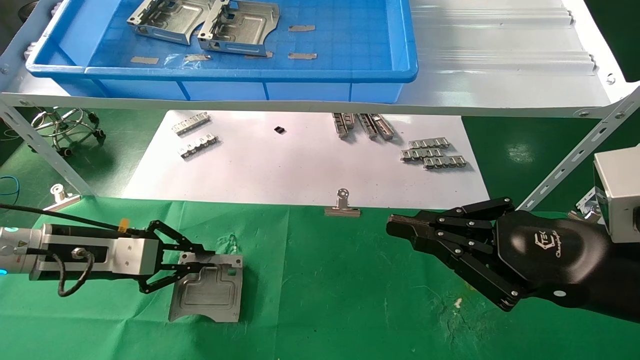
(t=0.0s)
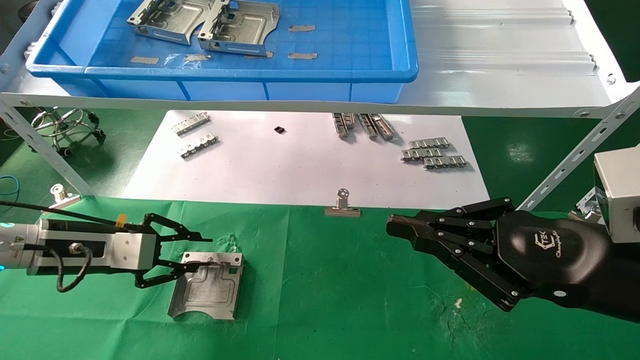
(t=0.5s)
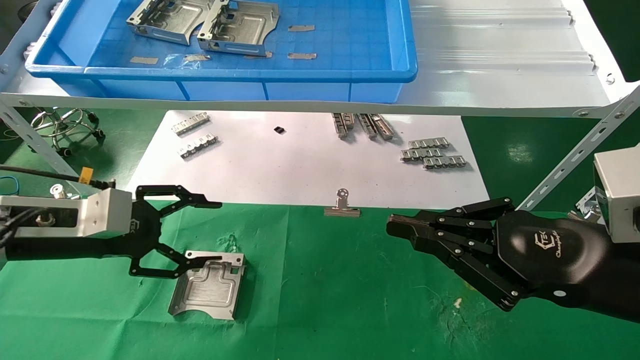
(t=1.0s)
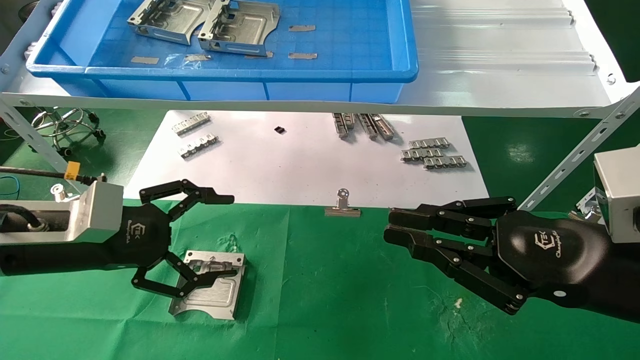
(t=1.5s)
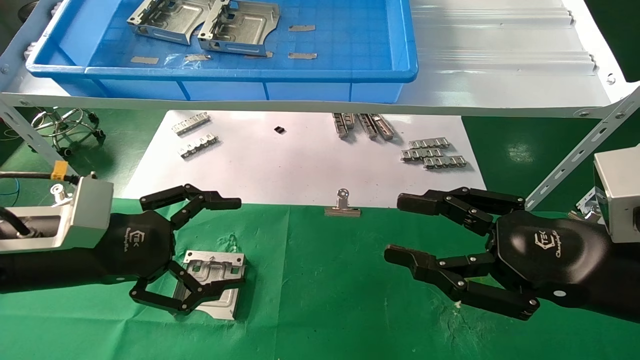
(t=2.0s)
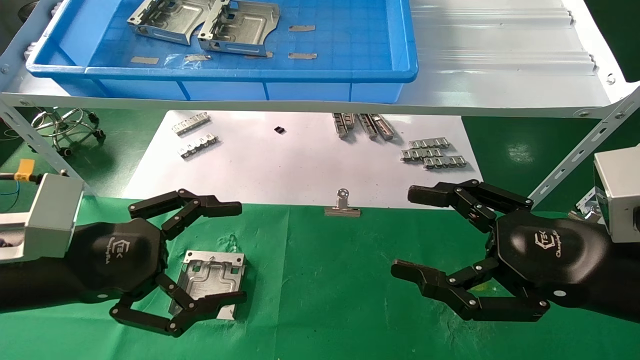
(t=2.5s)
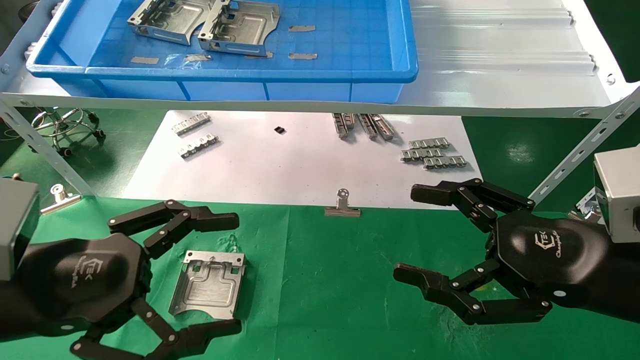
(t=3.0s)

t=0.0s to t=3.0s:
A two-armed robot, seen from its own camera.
Task of the whole recording: use the mechanical arm to pick up the parts and place them on the table.
t=0.0s to t=1.5s: The left gripper goes approximately 5 cm backward, and opens.
t=1.5s to t=3.0s: The right gripper opens its fingers. Meanwhile the left gripper moves backward, roughly 10 cm.

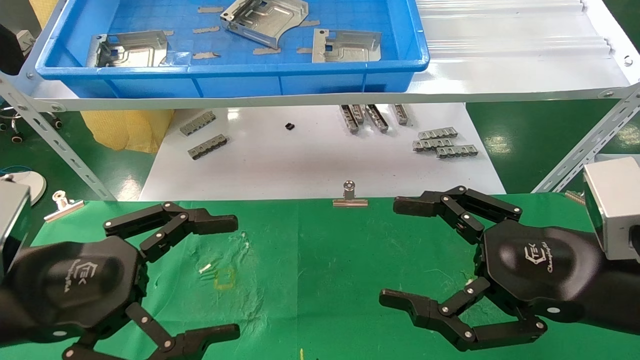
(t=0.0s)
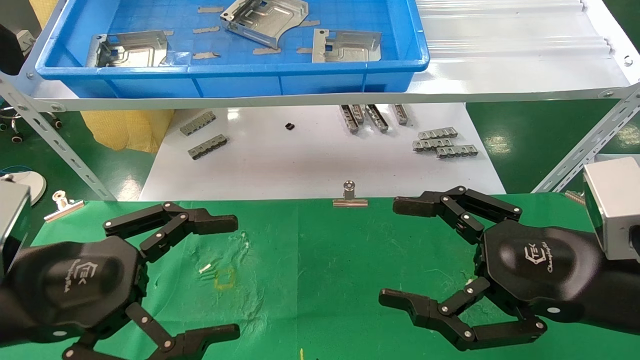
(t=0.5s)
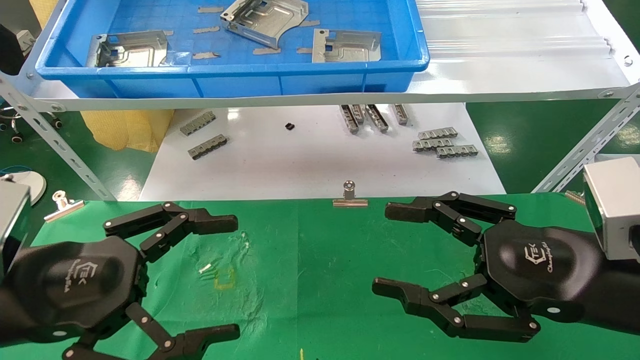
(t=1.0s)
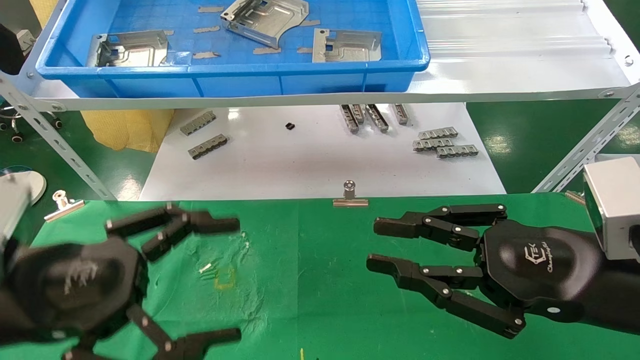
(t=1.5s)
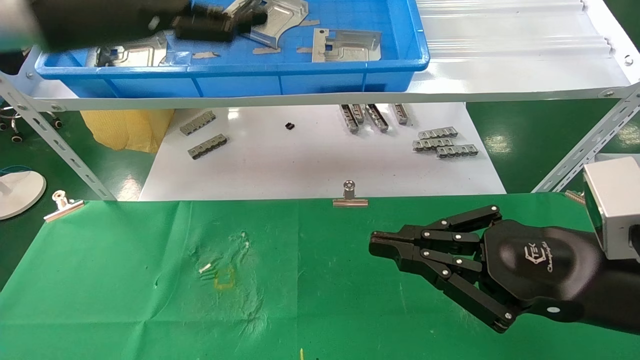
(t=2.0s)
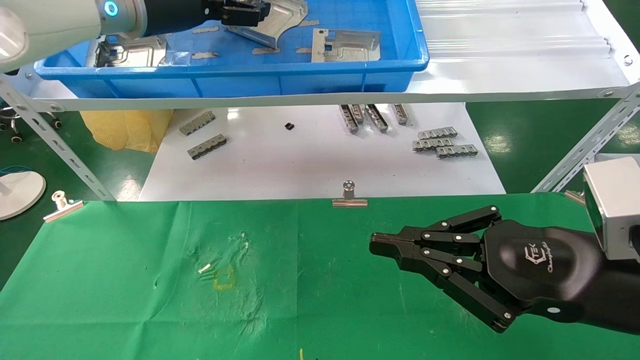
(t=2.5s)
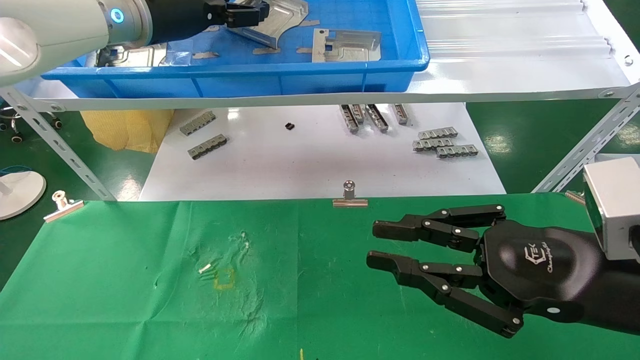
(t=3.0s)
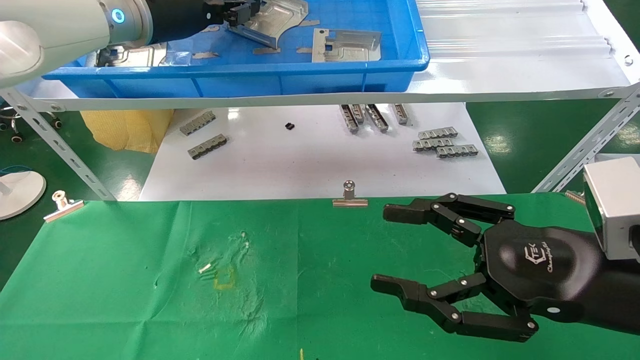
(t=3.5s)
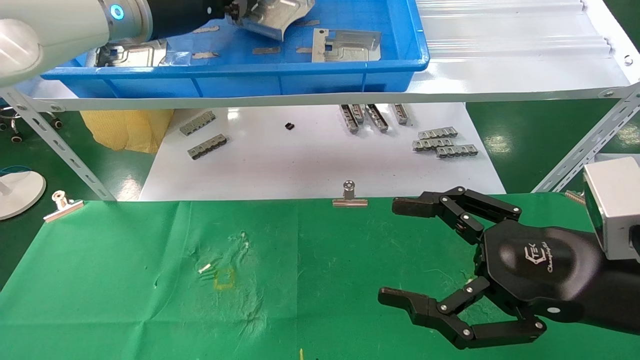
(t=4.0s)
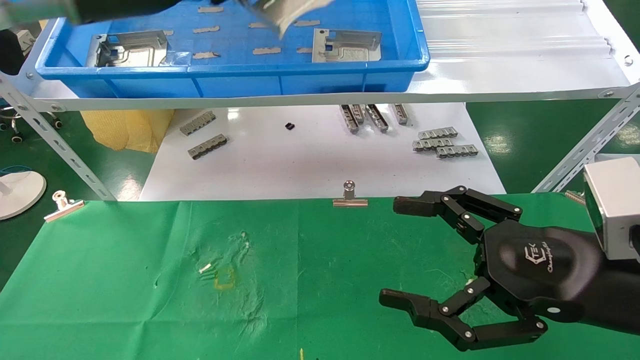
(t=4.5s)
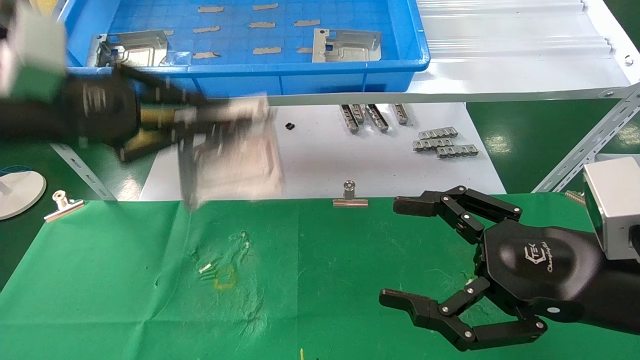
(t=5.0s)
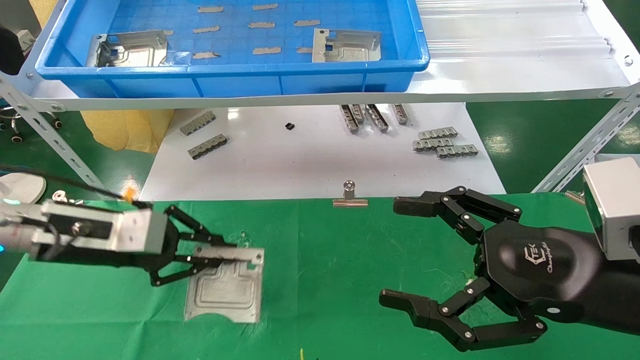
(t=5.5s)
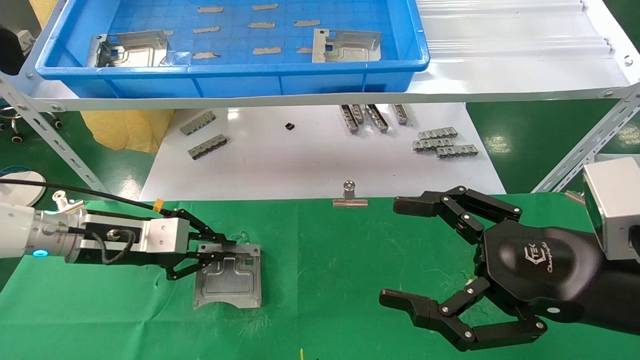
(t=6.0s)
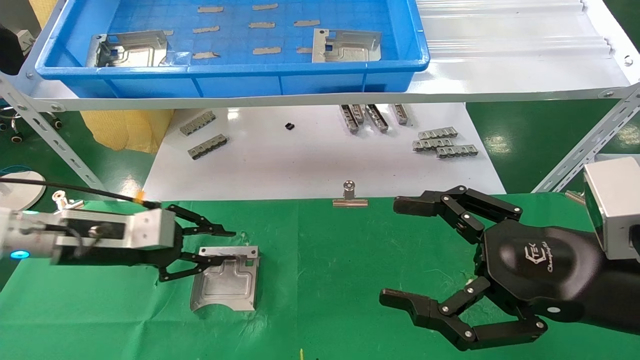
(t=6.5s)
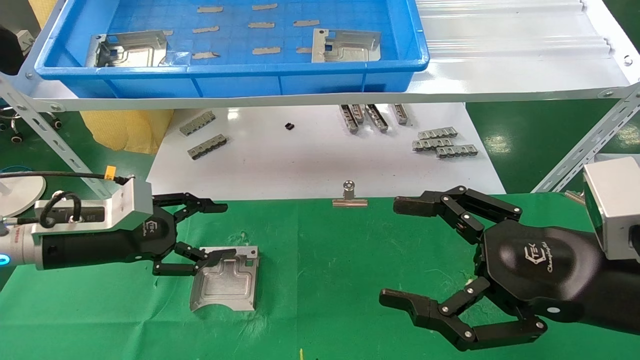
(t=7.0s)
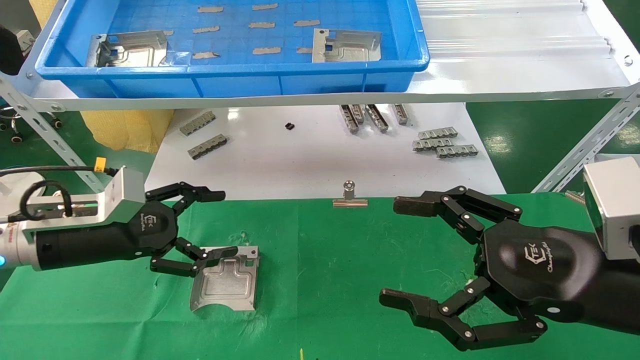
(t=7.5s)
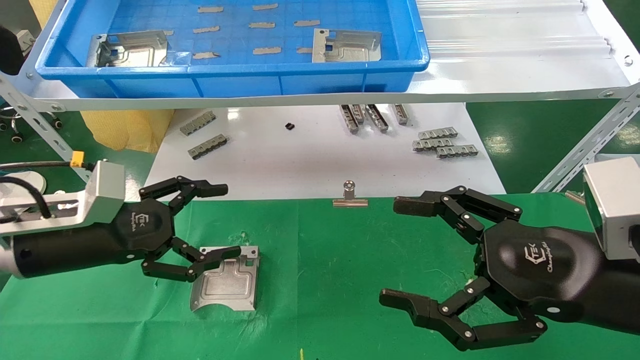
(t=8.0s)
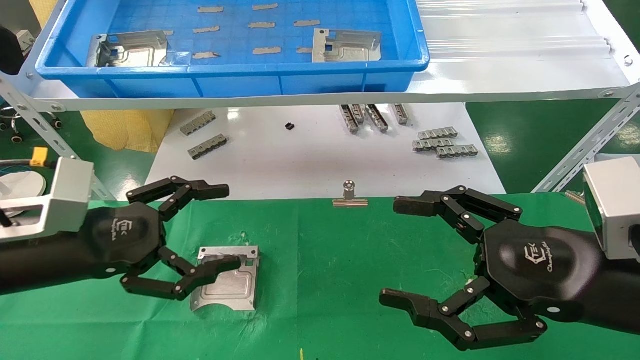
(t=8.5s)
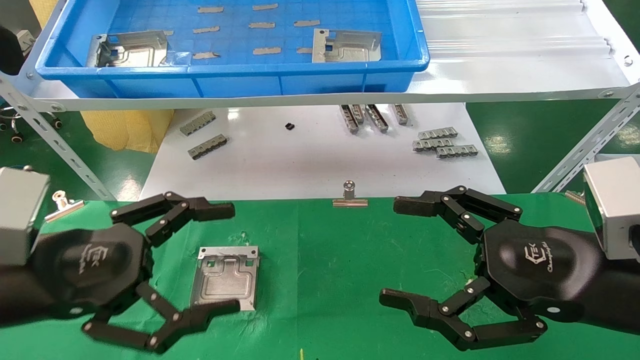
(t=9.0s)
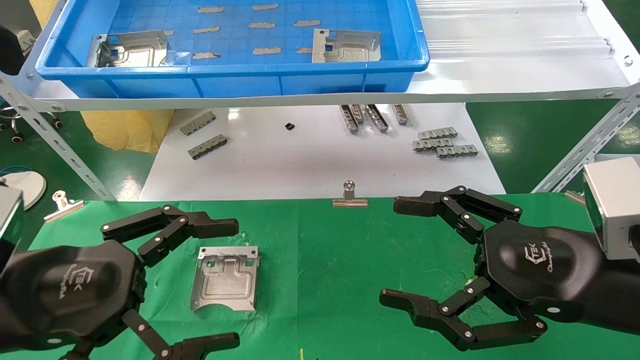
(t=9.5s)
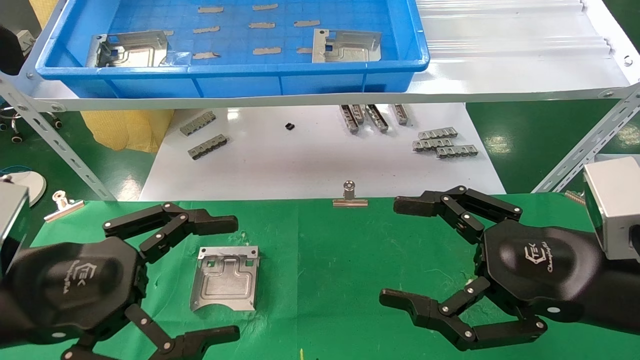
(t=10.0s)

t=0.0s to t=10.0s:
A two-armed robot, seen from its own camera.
Task of the whole recording: use the mechanical arm to pick up the parts and place them on the table.
Step, t=2.0s to t=3.5s: Pick up the hard drive bracket from the feeding area.
Step, t=4.0s to t=6.5s: Place the hard drive bracket into the box.
t=0.0s to t=2.0s: The right gripper closes up; the left gripper moves upward and forward, some 25 cm.
t=2.0s to t=4.0s: The left gripper is displaced forward by some 10 cm, and closes. The right gripper opens.
t=4.0s to t=6.0s: The left gripper is displaced downward by about 30 cm.
t=6.0s to t=8.0s: The left gripper heads backward, covering some 5 cm, and opens up.
t=8.0s to t=10.0s: The left gripper moves backward, about 10 cm.

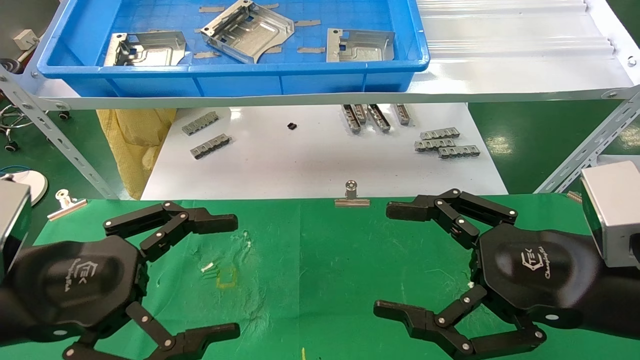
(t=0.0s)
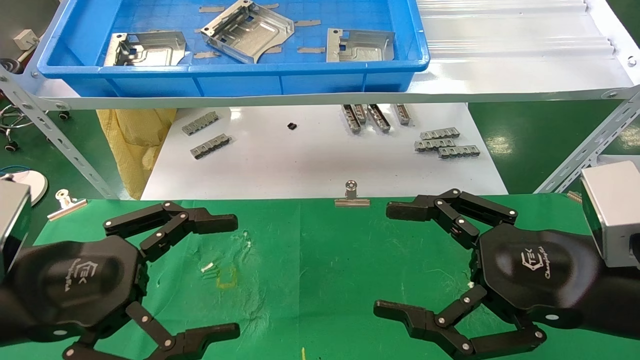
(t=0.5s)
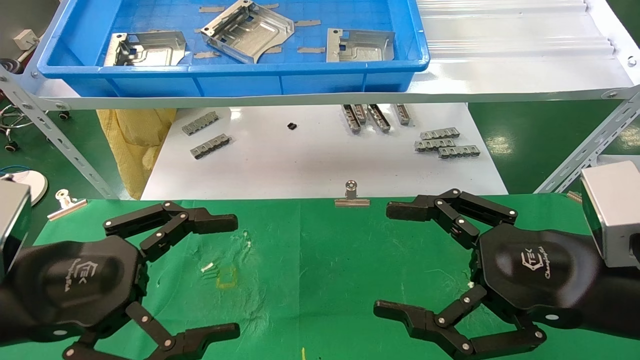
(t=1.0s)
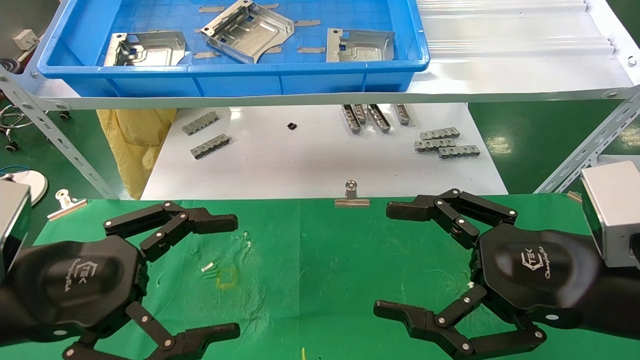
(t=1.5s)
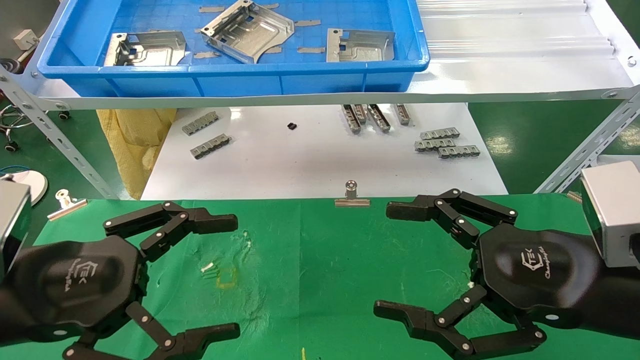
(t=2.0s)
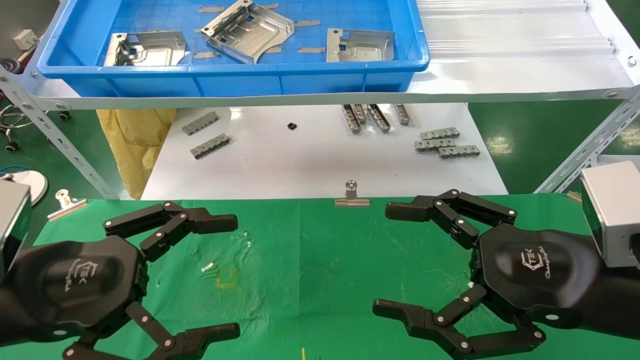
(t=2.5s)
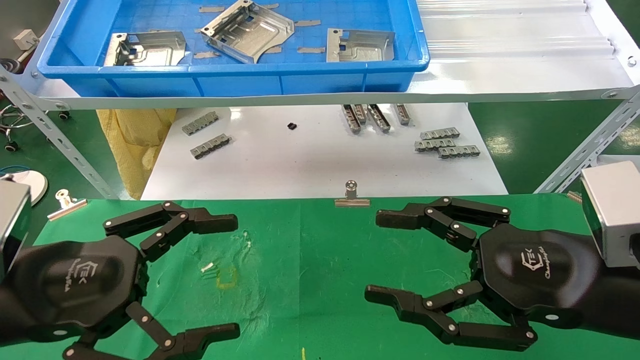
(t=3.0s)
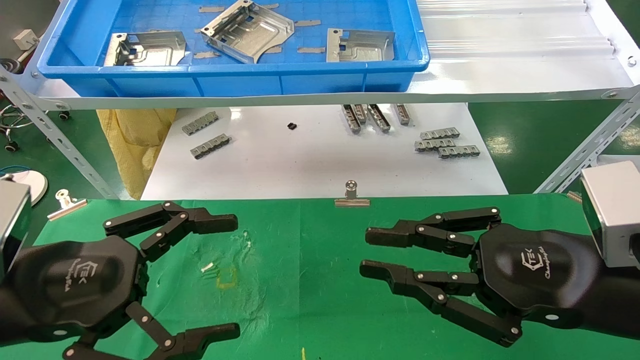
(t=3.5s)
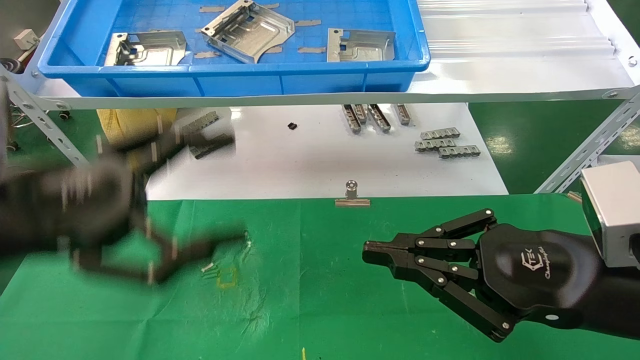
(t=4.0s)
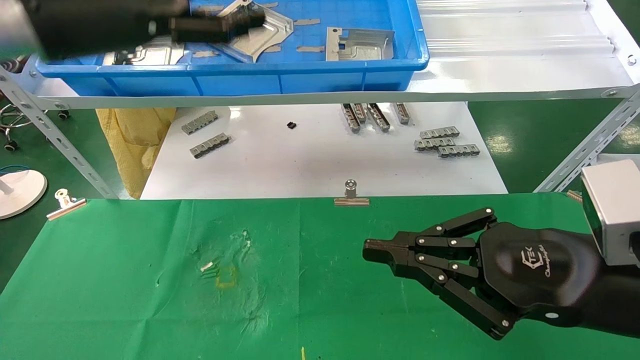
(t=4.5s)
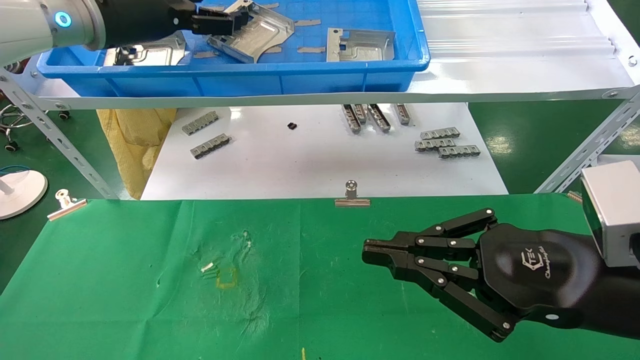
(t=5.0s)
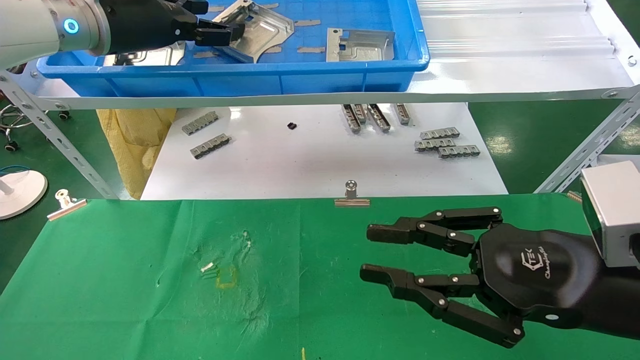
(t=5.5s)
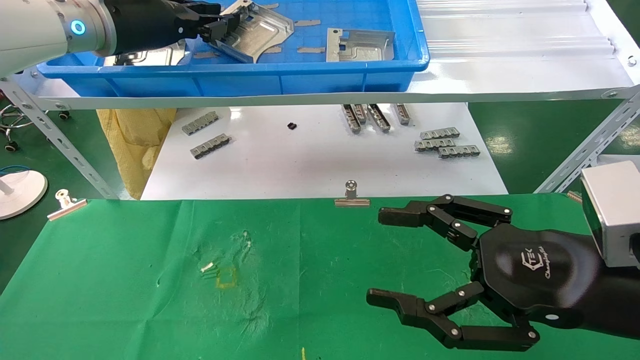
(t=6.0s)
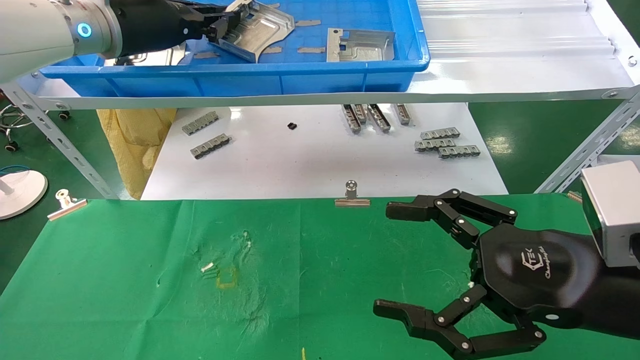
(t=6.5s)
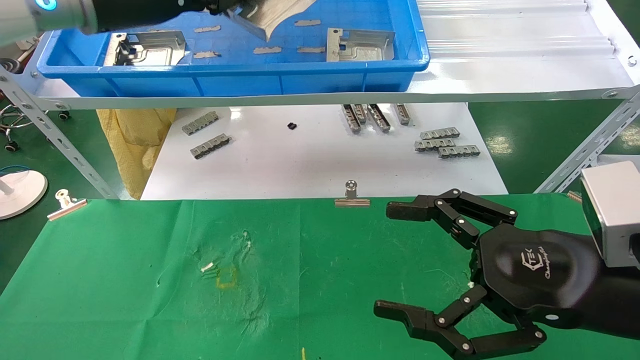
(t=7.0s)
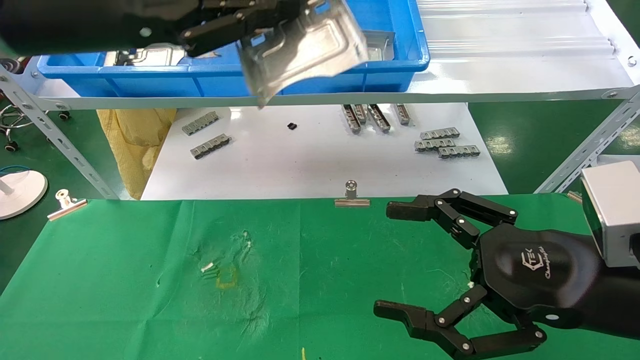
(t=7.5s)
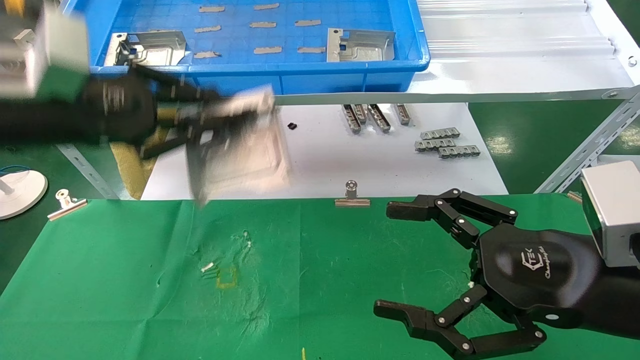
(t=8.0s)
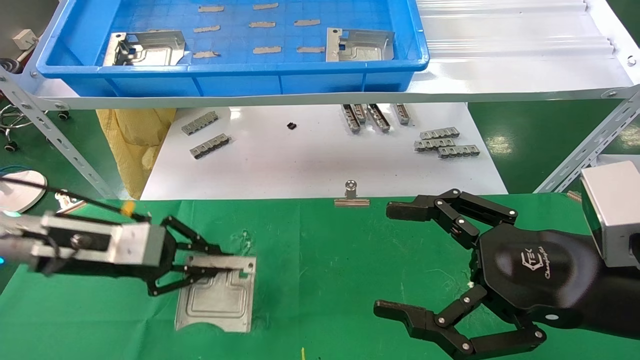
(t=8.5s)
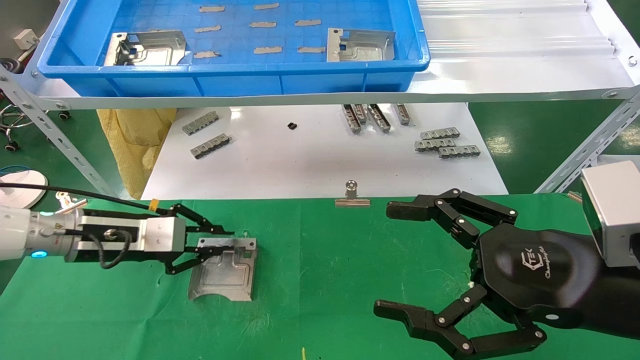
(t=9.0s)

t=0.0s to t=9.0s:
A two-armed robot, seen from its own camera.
Task of the whole recording: use the mechanical arm to pick up the parts and place them on the table.
Step, t=4.5s to t=6.0s: Pick up the hard drive bracket from the feeding area.
t=0.0s to t=2.0s: The two grippers keep their place.
t=2.0s to t=4.5s: The left gripper travels upward and forward by some 25 cm, while the right gripper closes up.
t=4.5s to t=7.0s: The right gripper opens, while the left gripper closes.
t=7.0s to t=9.0s: The left gripper heads downward, covering about 25 cm.
